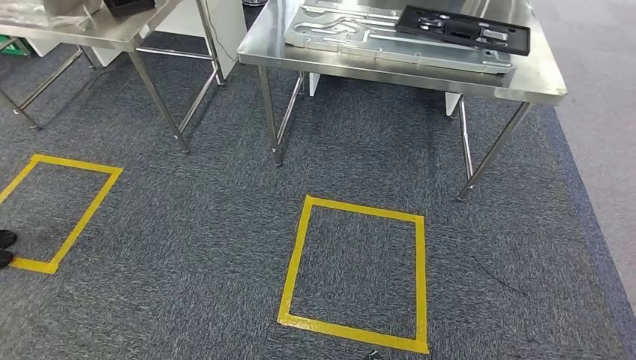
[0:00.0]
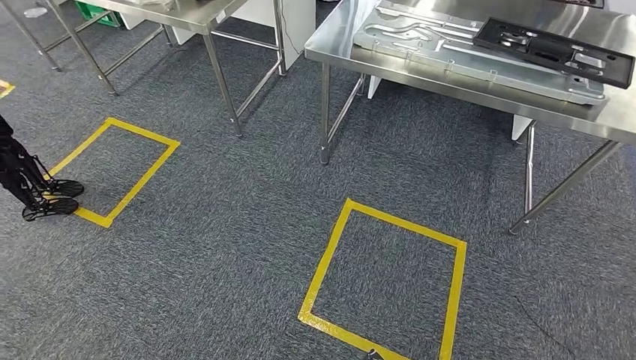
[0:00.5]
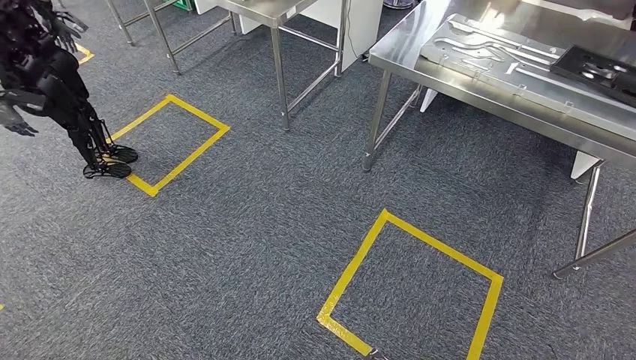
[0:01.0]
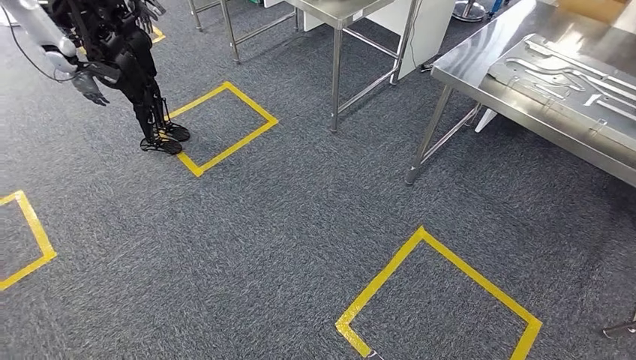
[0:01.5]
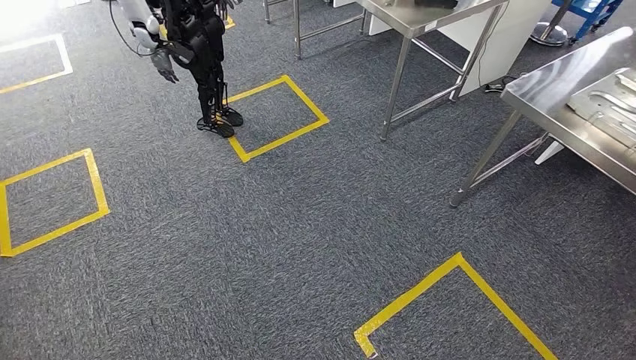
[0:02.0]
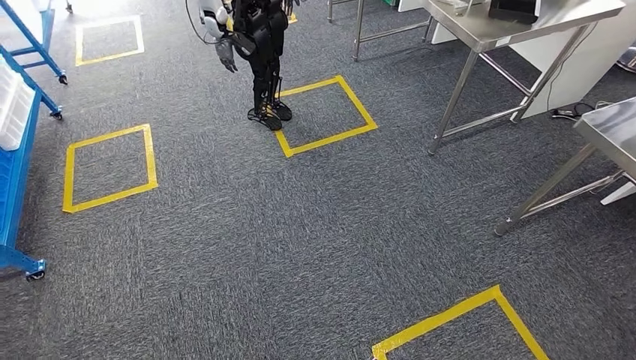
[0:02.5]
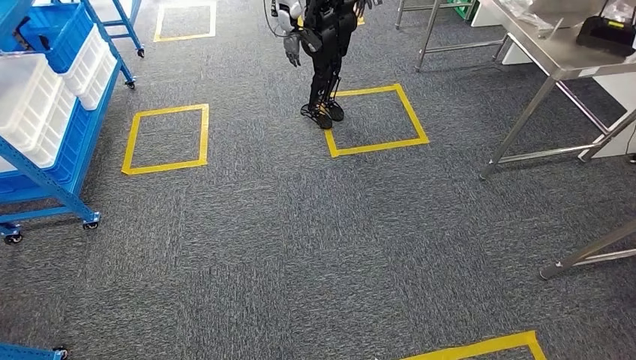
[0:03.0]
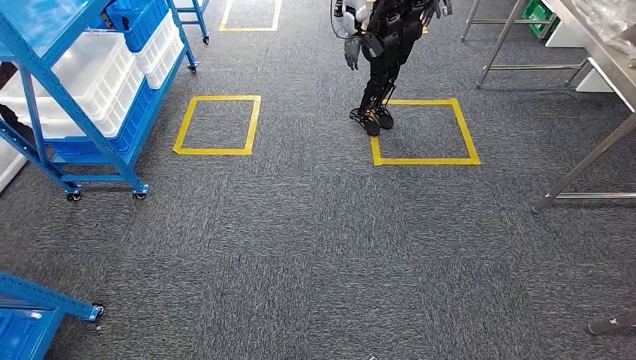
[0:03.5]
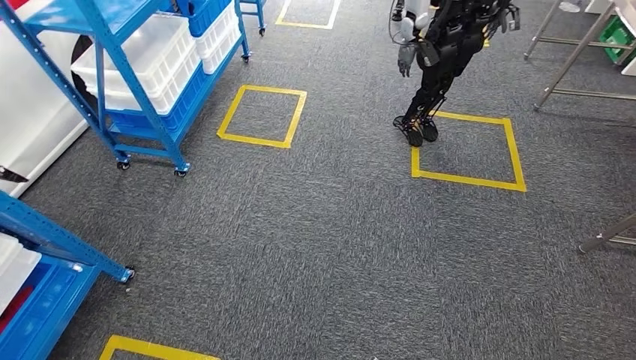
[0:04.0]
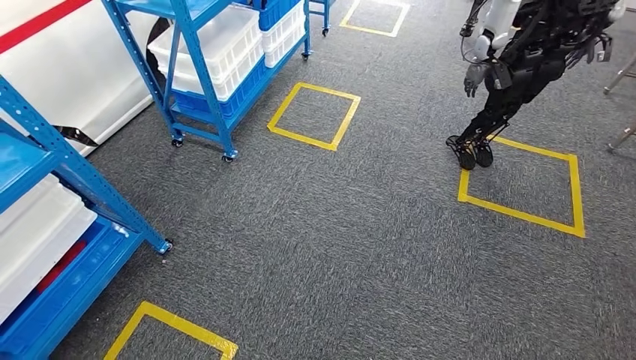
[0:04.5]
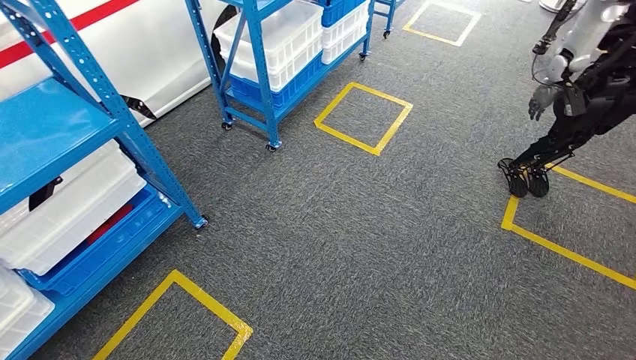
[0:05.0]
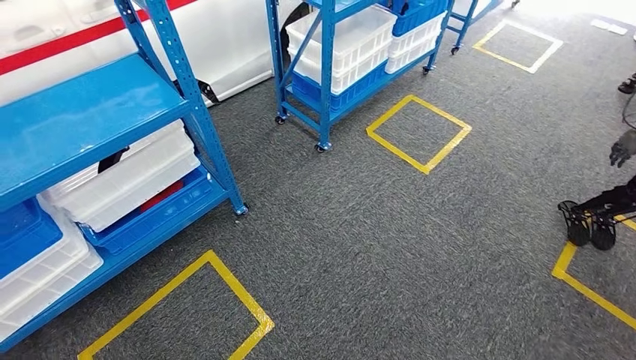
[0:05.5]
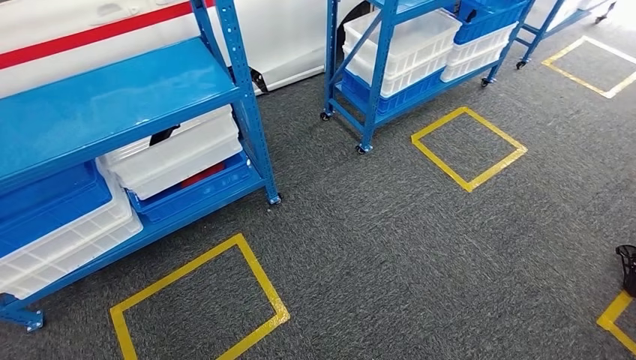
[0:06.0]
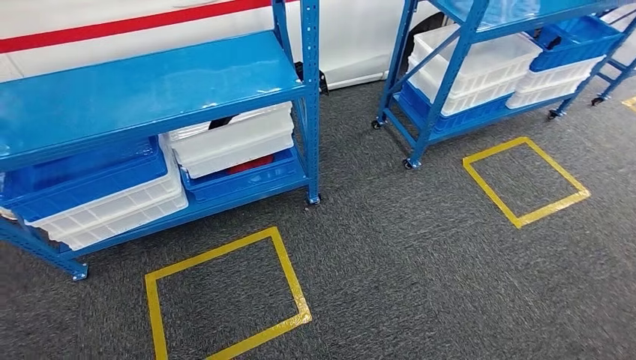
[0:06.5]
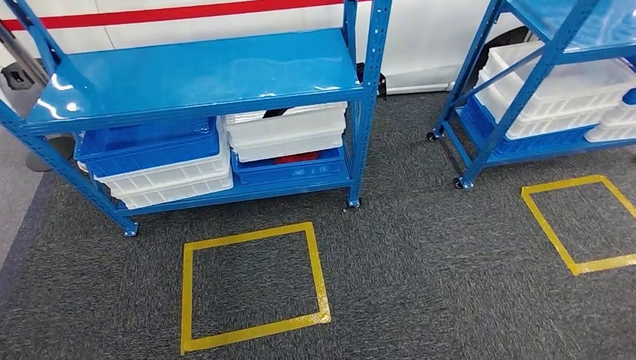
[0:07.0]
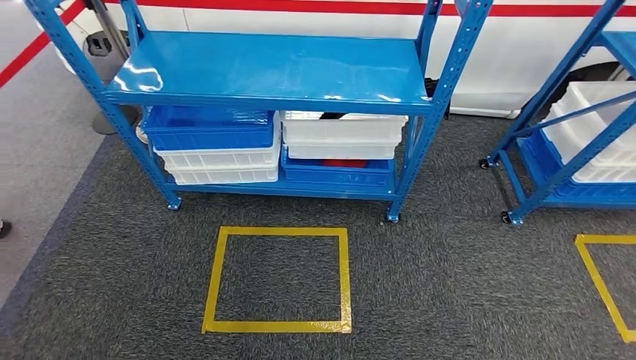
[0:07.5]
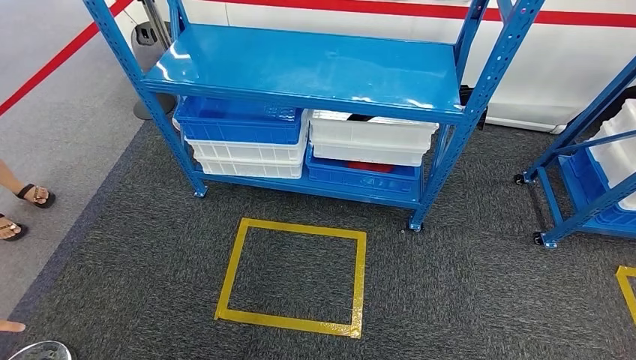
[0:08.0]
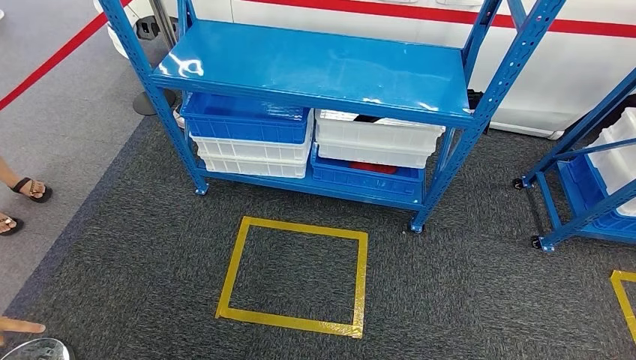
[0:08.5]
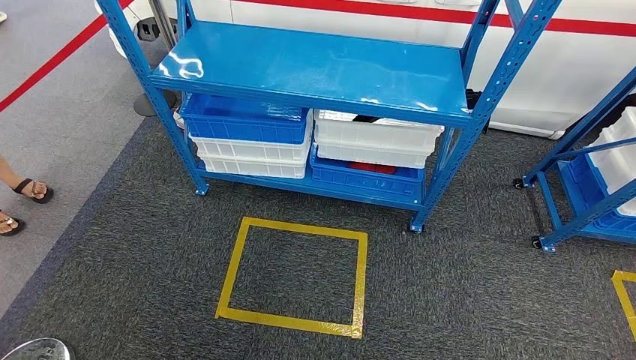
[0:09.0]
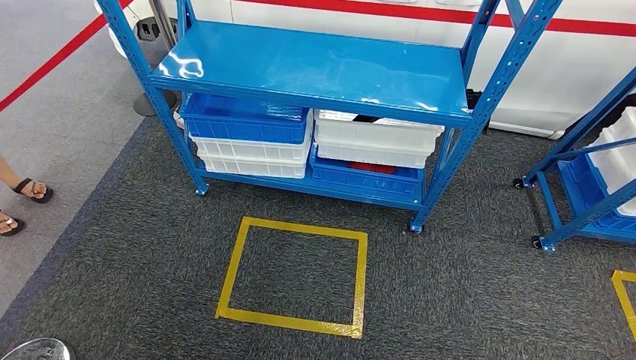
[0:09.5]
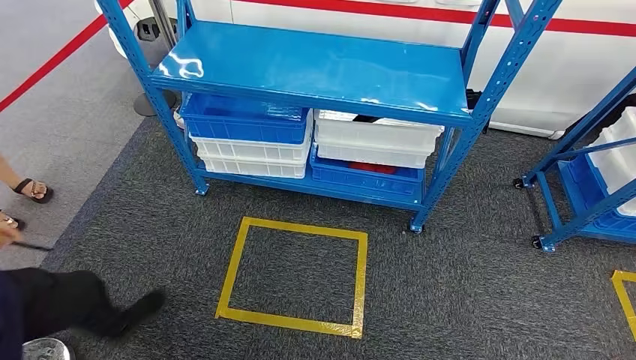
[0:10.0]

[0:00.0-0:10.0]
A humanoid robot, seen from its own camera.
Step, 0:00.0 to 0:09.5: Return to the initial position at the shelf.
0:08.0 to 0:10.0: The two hands keep their place.
